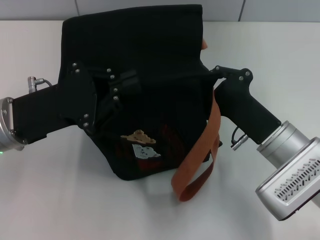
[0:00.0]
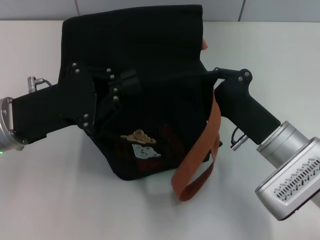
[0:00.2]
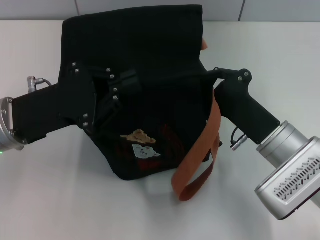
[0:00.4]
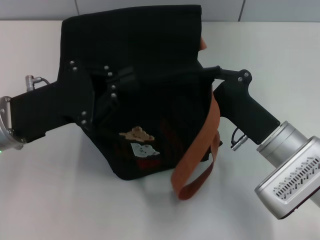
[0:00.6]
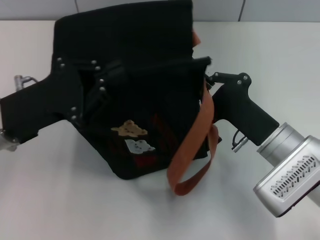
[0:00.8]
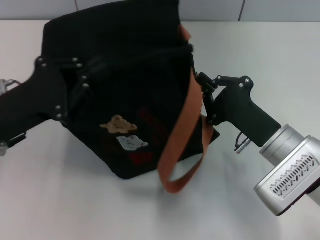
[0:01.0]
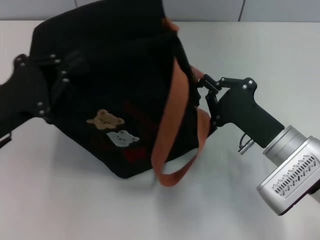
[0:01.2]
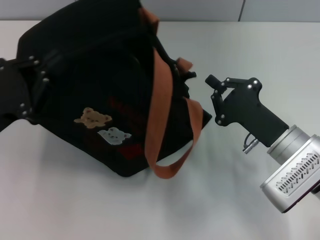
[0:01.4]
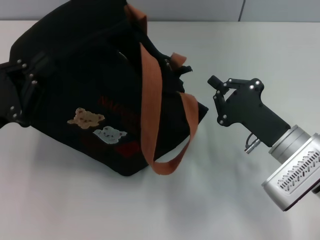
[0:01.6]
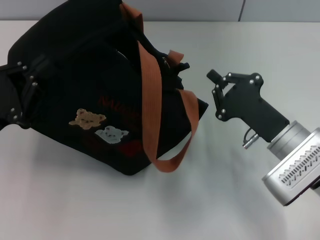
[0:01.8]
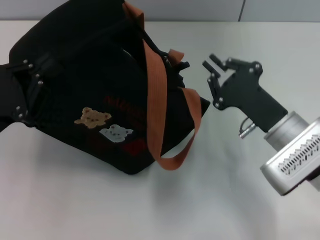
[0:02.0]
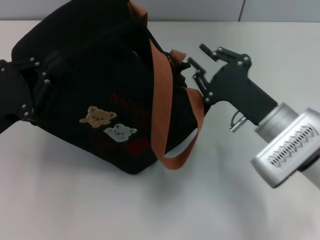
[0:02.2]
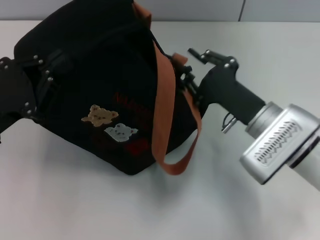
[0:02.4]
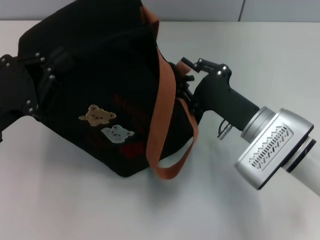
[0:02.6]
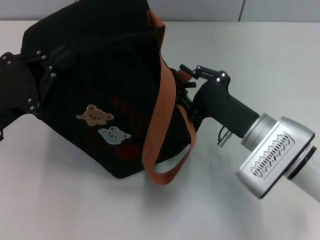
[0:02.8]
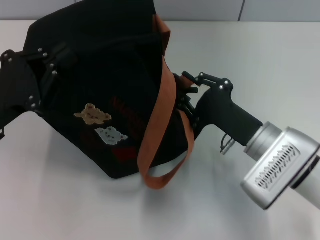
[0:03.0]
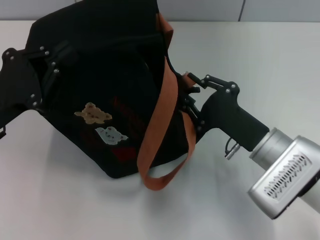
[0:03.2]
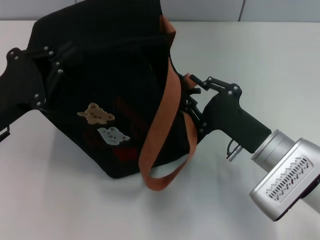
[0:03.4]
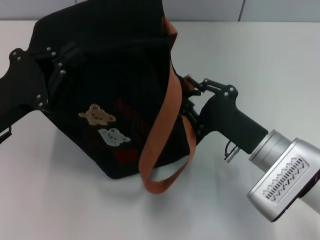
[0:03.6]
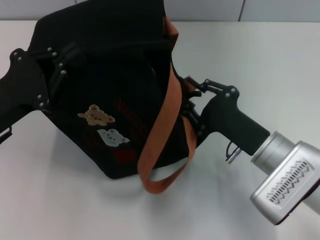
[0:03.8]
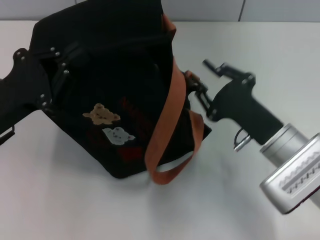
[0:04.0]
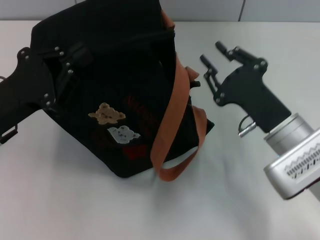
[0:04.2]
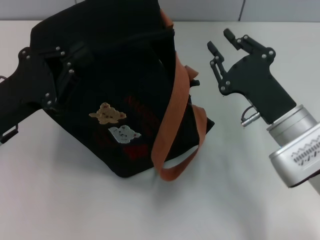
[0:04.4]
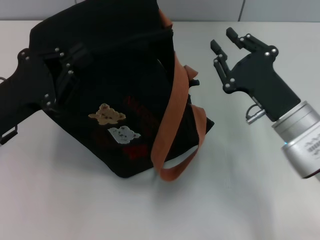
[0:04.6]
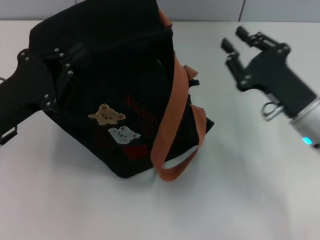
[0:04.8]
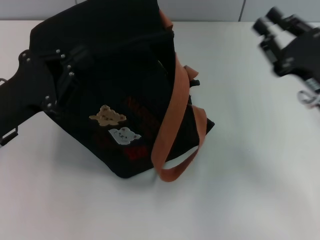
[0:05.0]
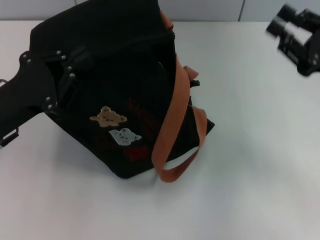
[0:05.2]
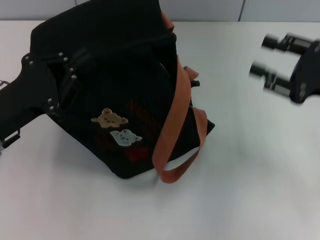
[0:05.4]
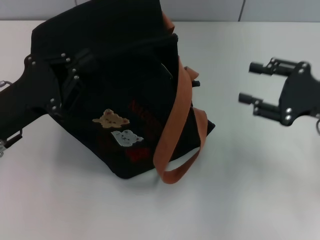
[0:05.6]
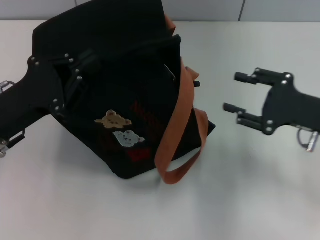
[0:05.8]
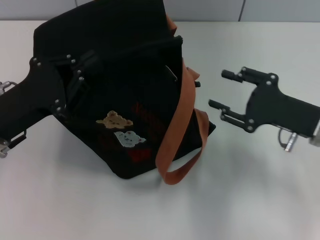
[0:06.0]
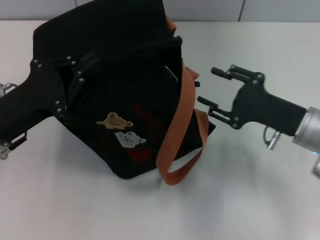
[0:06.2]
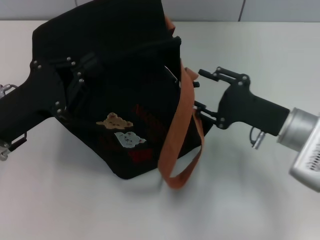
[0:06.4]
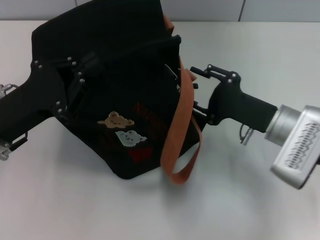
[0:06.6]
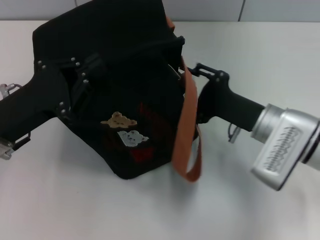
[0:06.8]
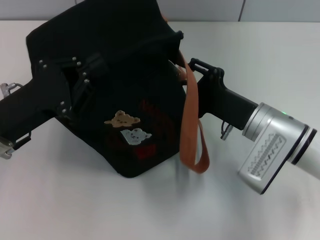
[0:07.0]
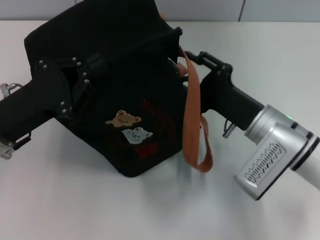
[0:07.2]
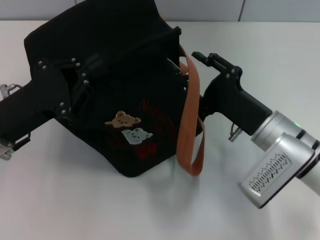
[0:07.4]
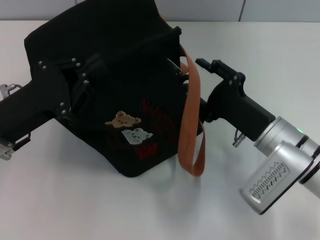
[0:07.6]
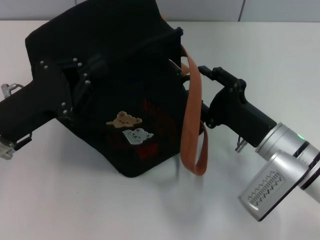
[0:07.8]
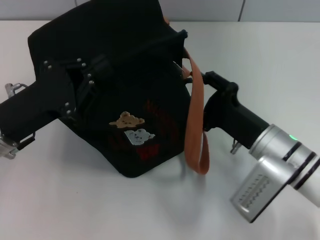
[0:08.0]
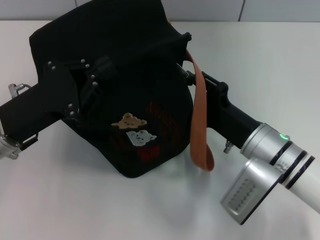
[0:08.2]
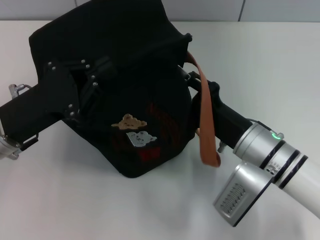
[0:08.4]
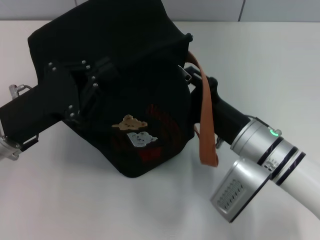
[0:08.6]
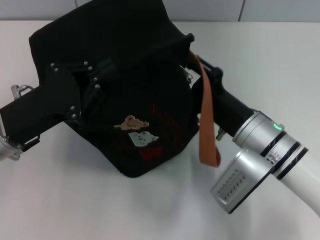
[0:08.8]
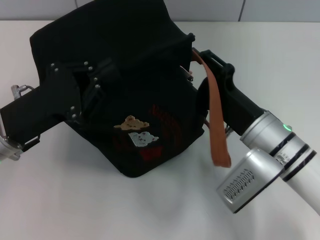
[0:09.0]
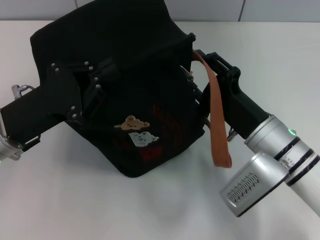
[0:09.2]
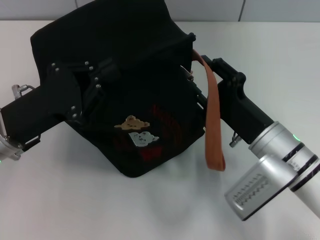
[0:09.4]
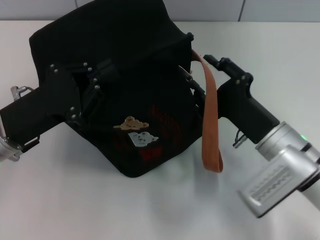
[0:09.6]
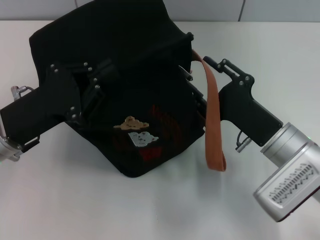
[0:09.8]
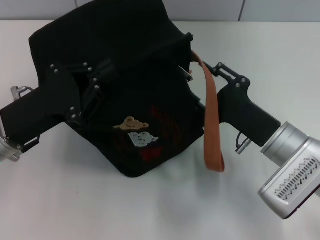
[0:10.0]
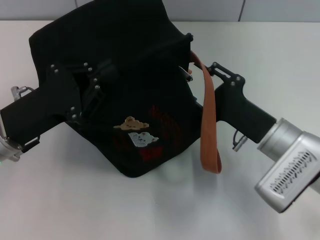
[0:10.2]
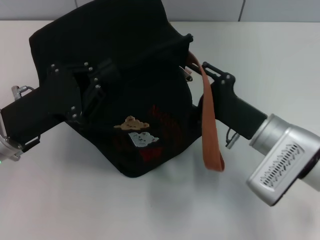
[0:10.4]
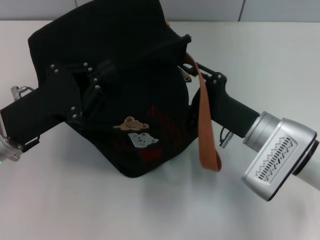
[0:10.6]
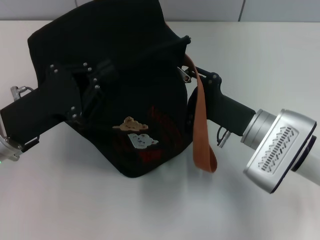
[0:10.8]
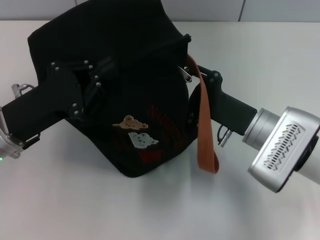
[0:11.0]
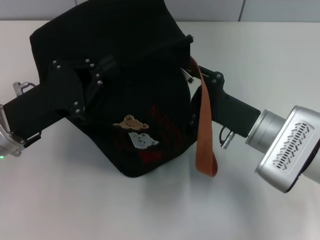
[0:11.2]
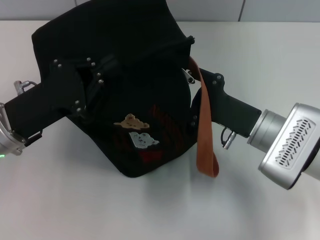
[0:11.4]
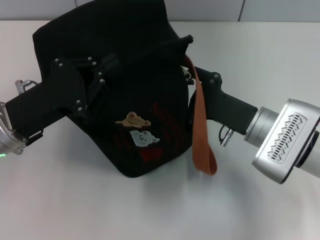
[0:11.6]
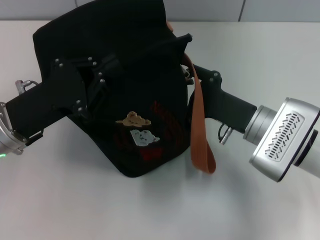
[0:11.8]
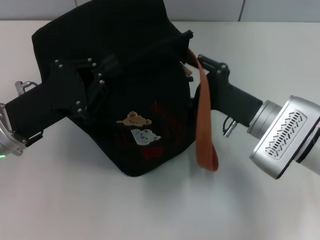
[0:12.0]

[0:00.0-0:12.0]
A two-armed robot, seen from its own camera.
0:00.0 to 0:01.6: The left gripper is displaced to the left by roughly 5 cm.
0:01.6 to 0:03.0: The right gripper opens.
0:04.4 to 0:06.0: The right gripper moves to the right, approximately 5 cm.
0:06.0 to 0:07.6: The right gripper is displaced to the left by approximately 5 cm.
0:10.4 to 0:12.0: The grippers make only small movements.

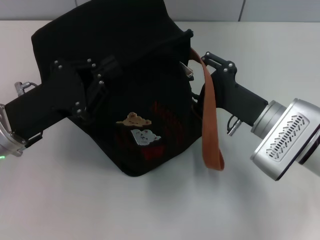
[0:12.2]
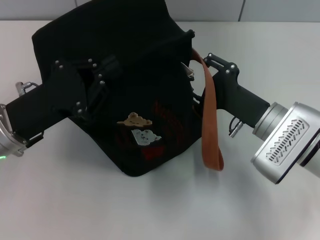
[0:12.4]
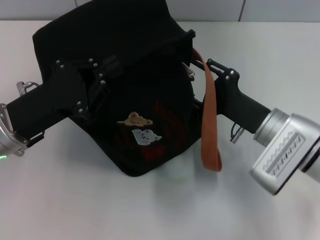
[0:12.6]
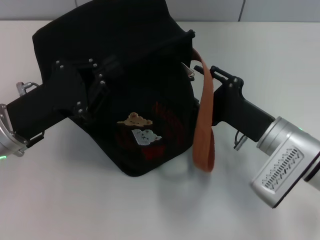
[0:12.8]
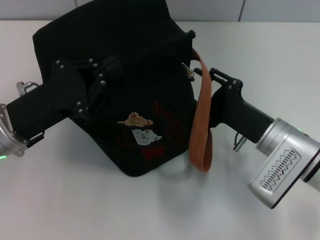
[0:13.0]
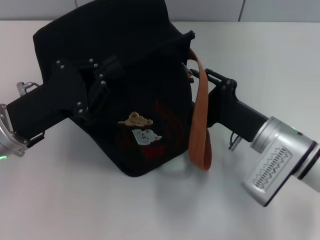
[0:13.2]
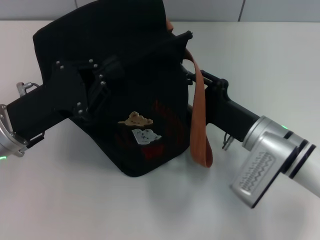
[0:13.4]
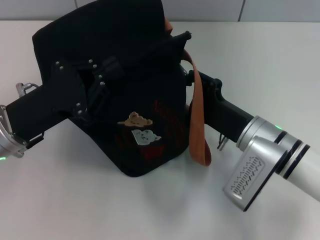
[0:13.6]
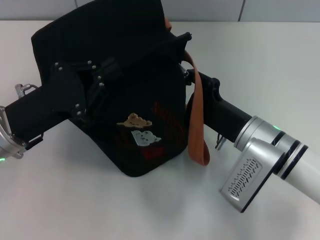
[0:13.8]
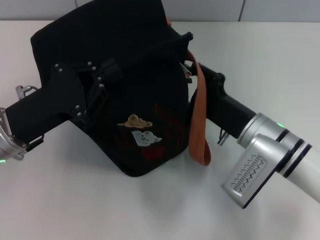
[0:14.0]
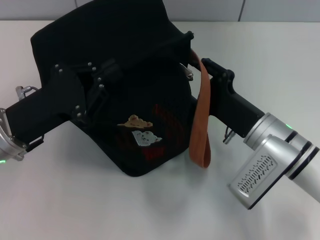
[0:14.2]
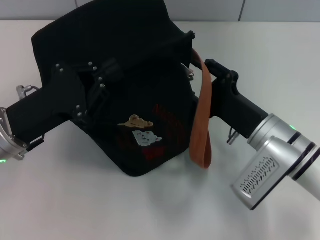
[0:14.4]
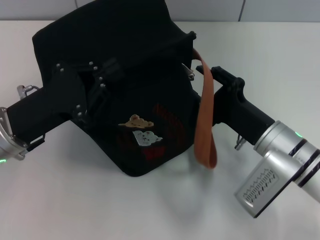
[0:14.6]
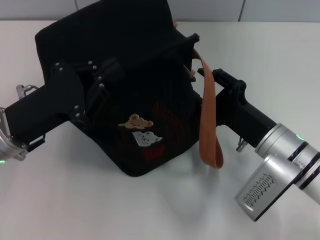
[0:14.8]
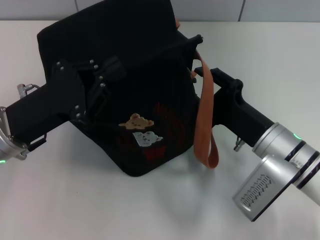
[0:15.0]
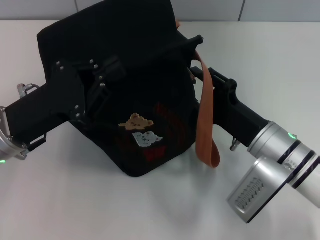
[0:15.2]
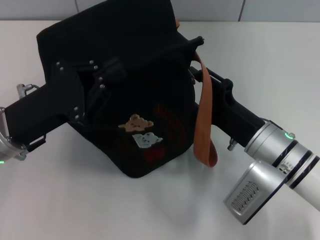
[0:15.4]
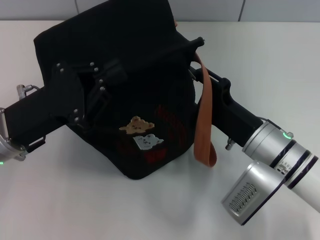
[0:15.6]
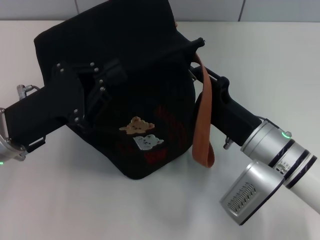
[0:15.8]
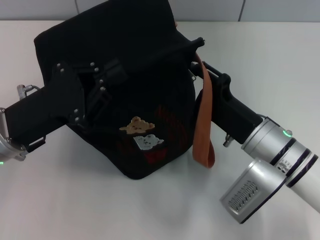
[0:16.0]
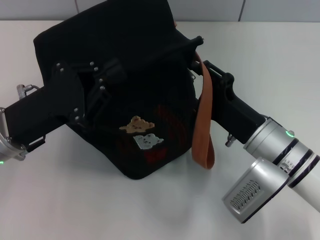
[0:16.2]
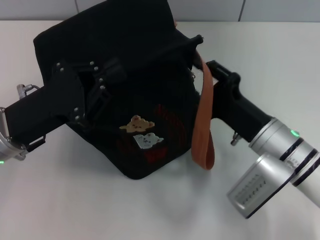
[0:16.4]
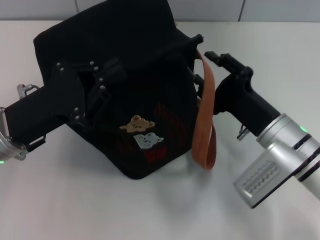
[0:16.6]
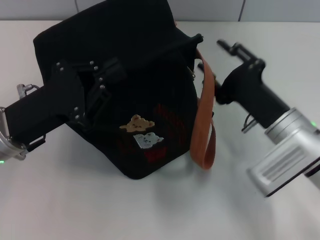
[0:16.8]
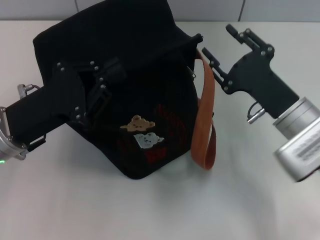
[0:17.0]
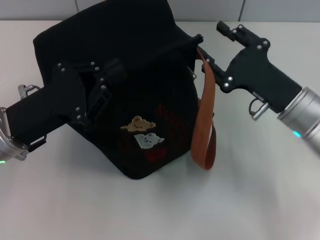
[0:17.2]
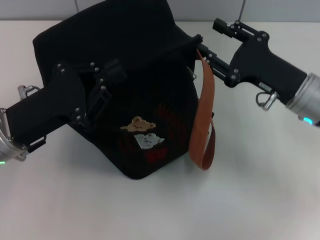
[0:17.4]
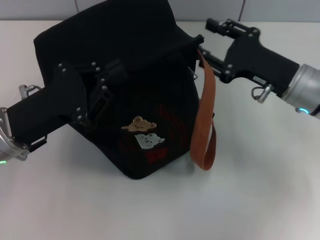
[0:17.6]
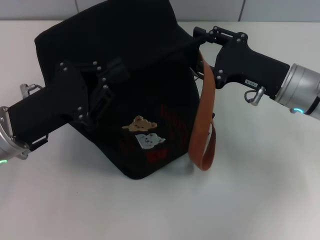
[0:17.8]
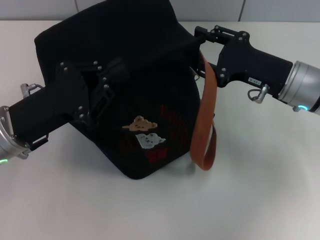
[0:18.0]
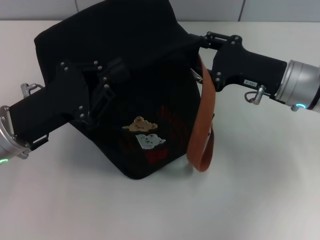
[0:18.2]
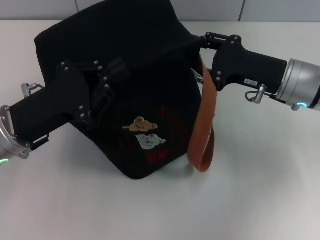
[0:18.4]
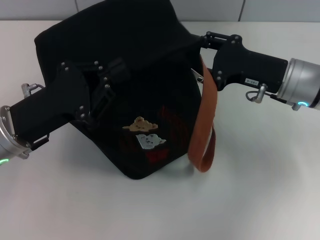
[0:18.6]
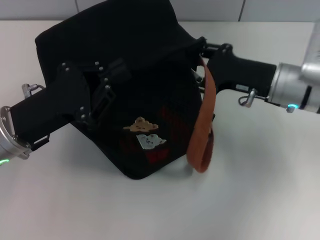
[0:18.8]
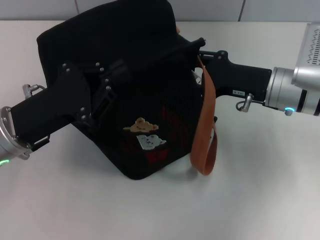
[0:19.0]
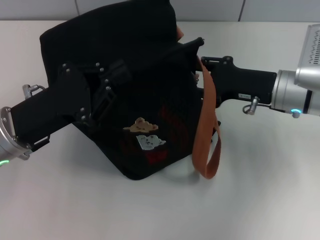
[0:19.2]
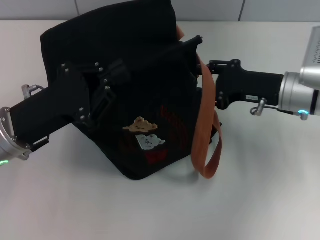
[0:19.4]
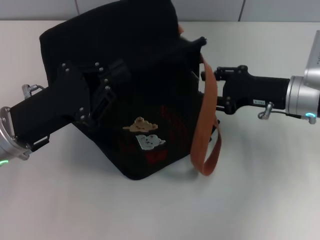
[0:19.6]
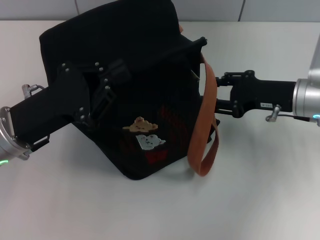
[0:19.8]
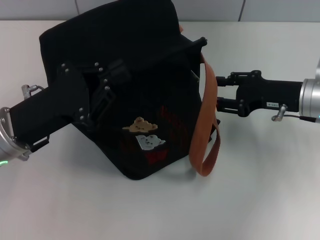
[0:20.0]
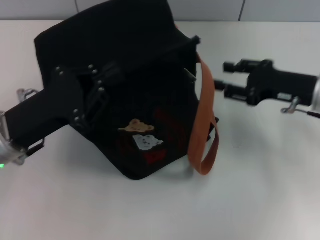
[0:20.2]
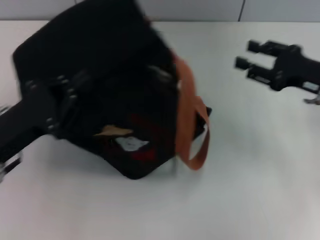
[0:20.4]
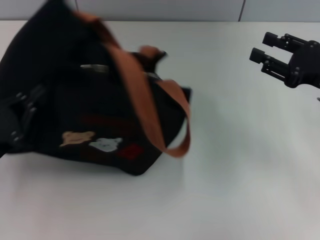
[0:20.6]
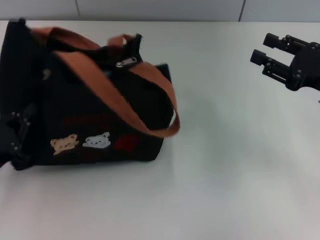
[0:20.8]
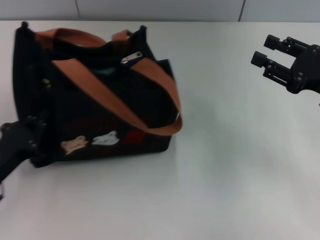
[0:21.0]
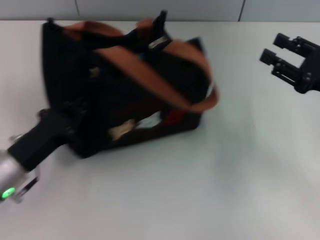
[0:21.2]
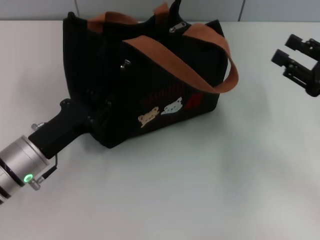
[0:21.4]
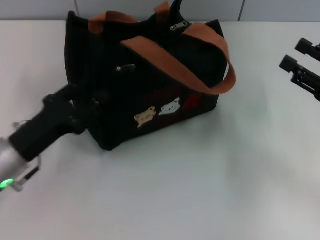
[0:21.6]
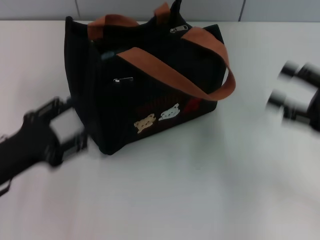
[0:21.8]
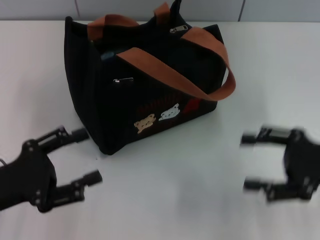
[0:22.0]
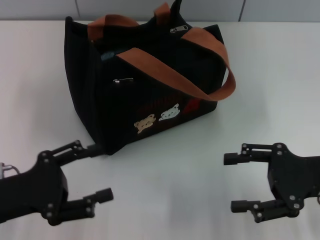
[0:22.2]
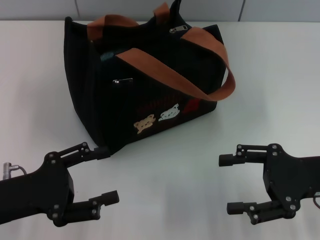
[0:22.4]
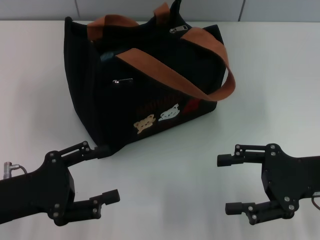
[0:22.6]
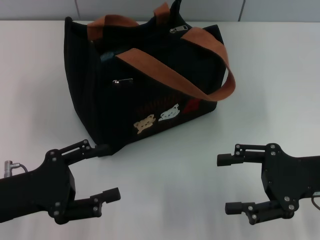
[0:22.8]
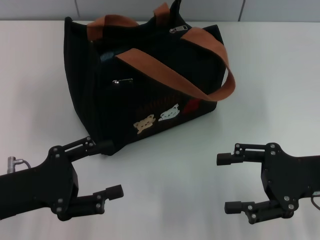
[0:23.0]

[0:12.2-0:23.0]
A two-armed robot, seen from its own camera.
Step, 0:12.2 to 0:17.0: Pull open the zipper with your right hand.
Step, 0:17.4 to 0:21.6: Grab the bag with your left hand.
0:13.8 to 0:16.8: The grippers move only a little.
0:16.8 to 0:18.4: The right gripper is displaced forward and upward by roughly 10 cm.
0:20.0 to 0:21.4: The right gripper travels to the right and backward by about 10 cm. Meanwhile the left gripper goes some 5 cm downward, and travels to the left and back again, about 10 cm each way.
0:21.4 to 0:23.0: The left gripper heads backward, covering approximately 5 cm, and opens up; the right gripper is displaced to the left by approximately 5 cm.
